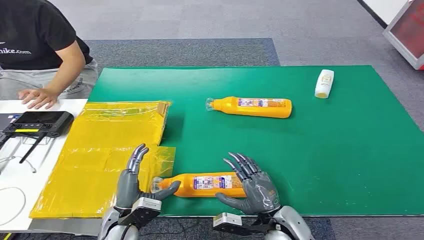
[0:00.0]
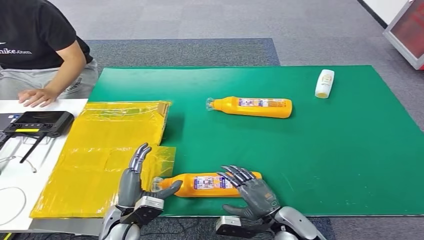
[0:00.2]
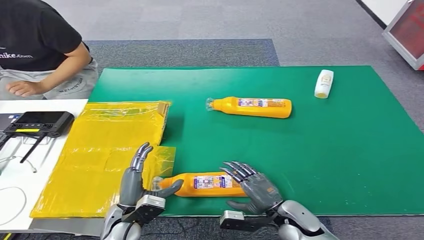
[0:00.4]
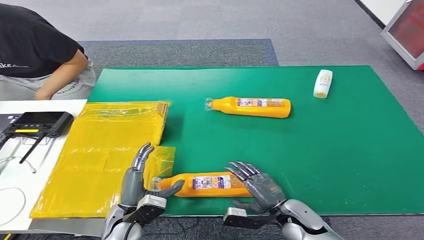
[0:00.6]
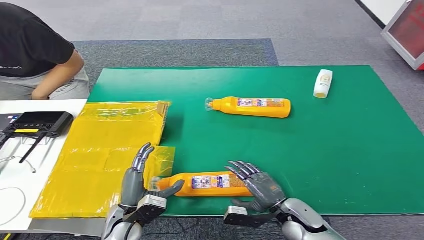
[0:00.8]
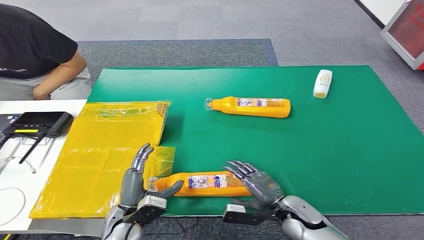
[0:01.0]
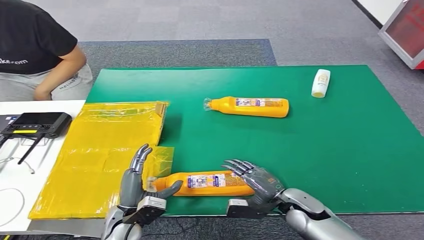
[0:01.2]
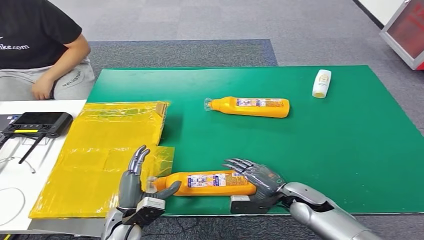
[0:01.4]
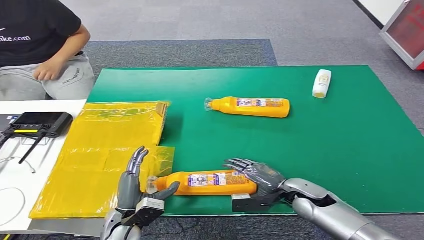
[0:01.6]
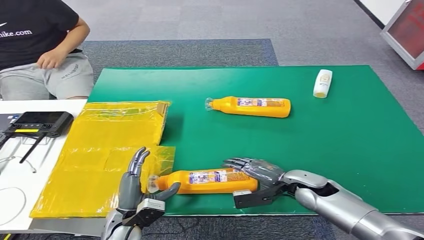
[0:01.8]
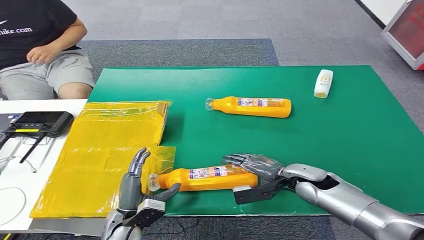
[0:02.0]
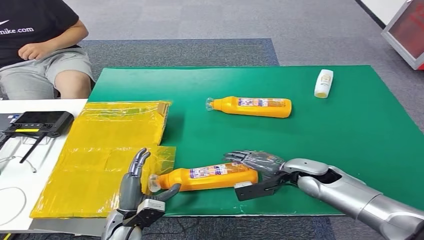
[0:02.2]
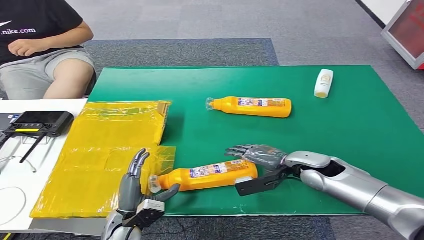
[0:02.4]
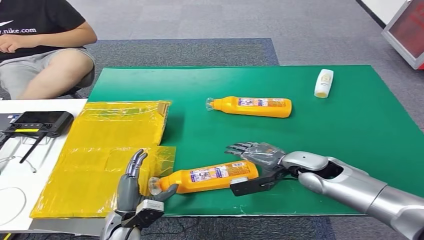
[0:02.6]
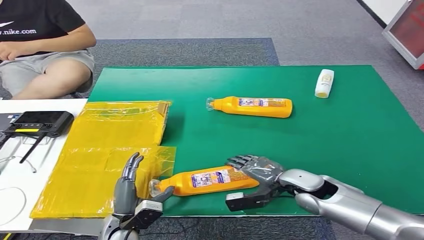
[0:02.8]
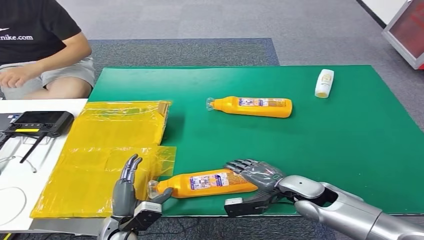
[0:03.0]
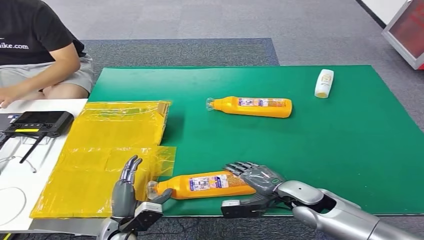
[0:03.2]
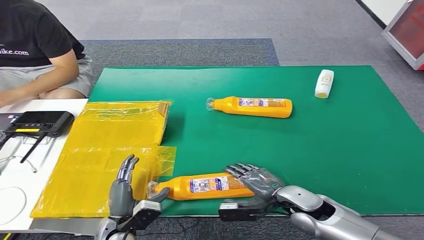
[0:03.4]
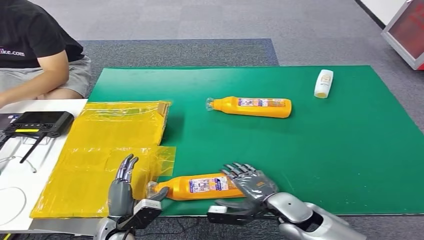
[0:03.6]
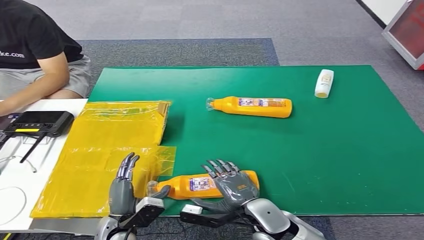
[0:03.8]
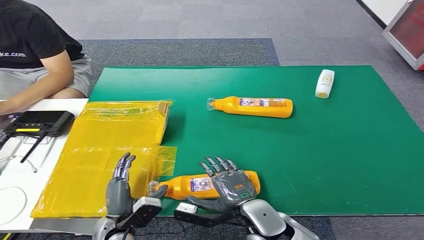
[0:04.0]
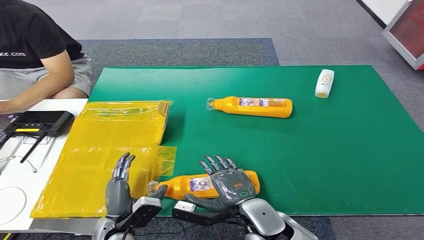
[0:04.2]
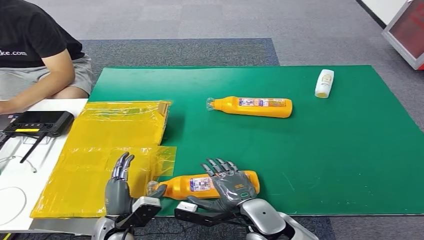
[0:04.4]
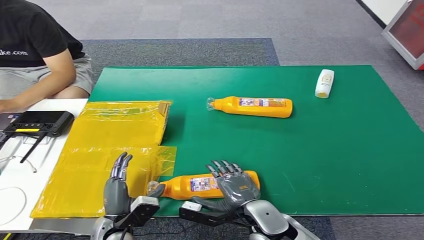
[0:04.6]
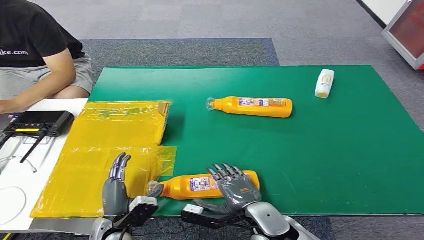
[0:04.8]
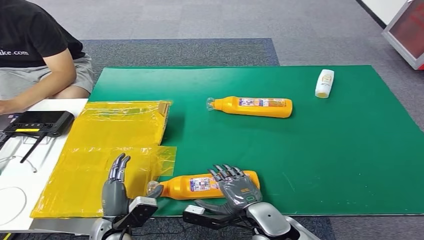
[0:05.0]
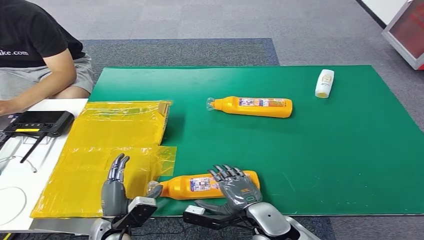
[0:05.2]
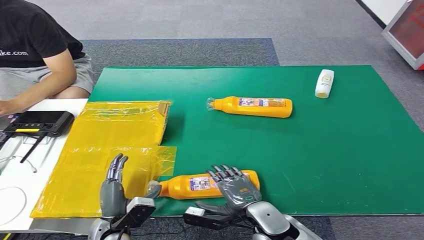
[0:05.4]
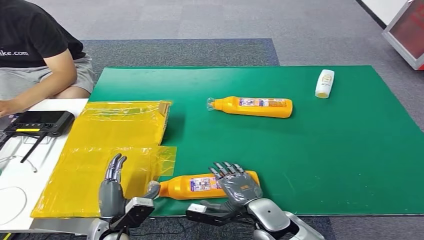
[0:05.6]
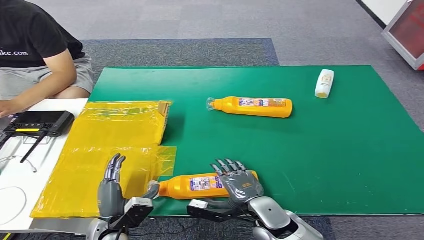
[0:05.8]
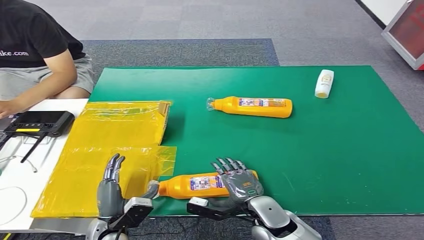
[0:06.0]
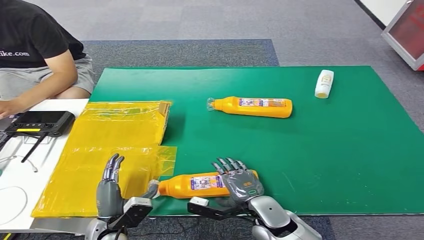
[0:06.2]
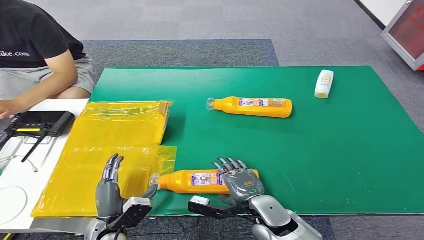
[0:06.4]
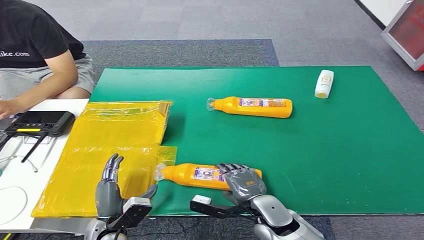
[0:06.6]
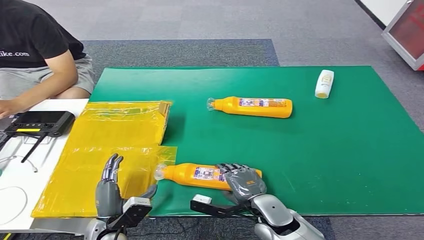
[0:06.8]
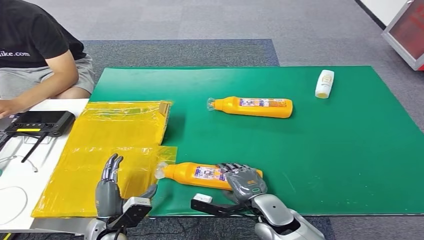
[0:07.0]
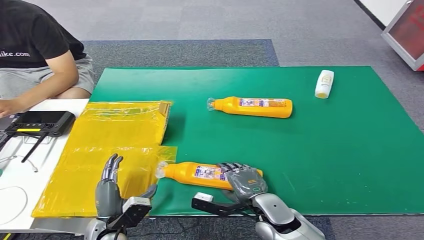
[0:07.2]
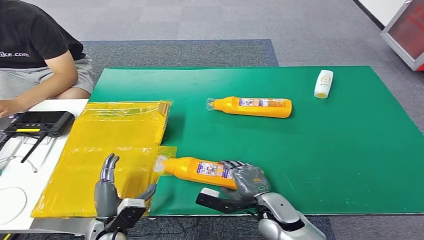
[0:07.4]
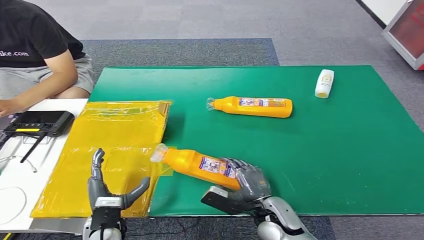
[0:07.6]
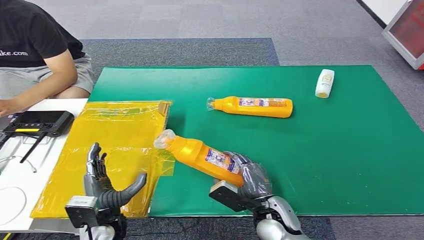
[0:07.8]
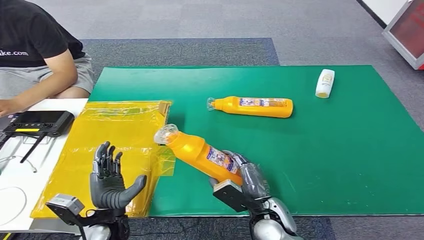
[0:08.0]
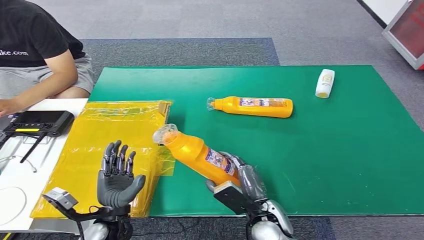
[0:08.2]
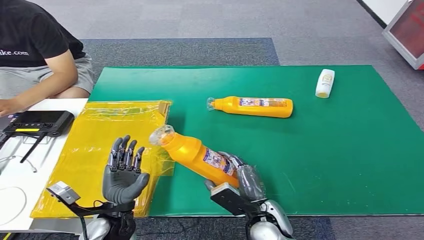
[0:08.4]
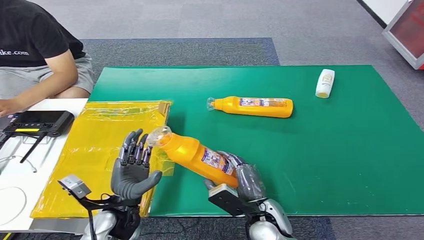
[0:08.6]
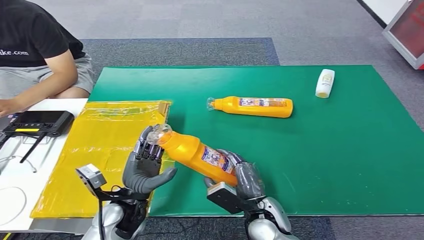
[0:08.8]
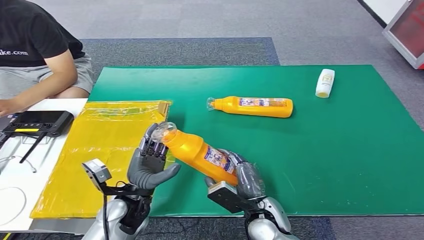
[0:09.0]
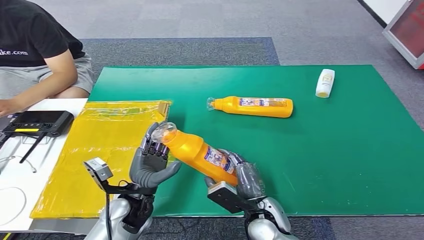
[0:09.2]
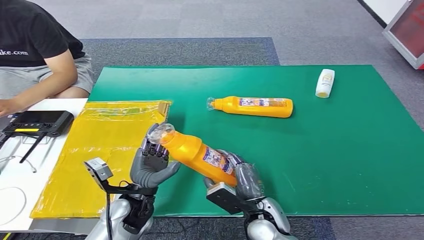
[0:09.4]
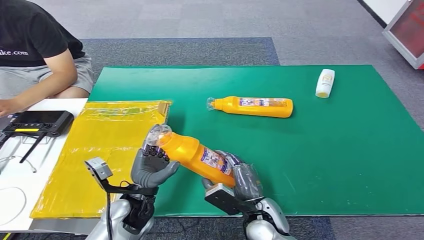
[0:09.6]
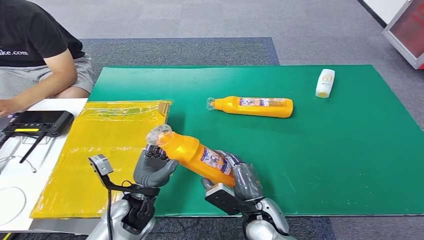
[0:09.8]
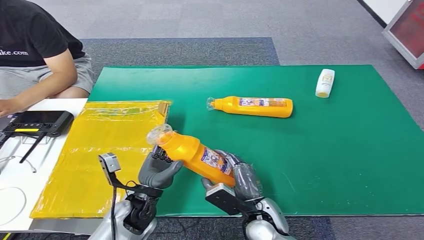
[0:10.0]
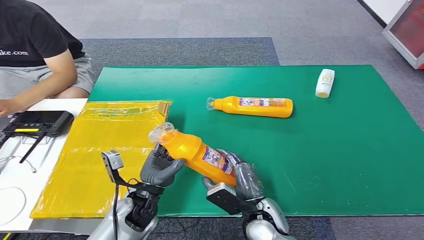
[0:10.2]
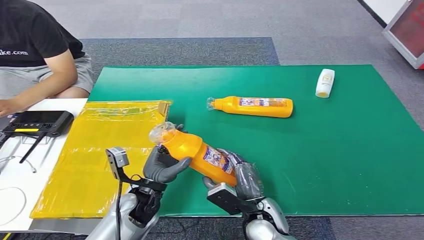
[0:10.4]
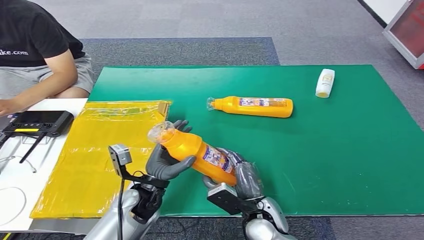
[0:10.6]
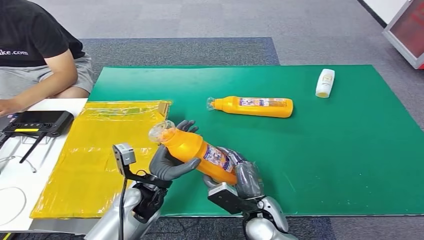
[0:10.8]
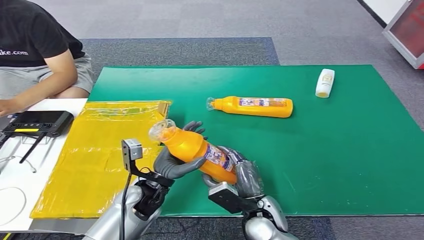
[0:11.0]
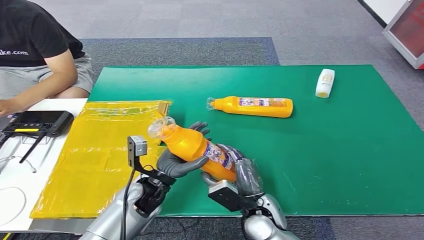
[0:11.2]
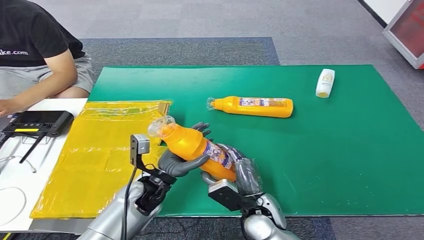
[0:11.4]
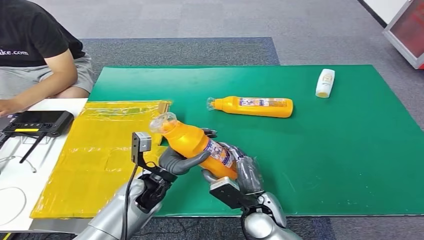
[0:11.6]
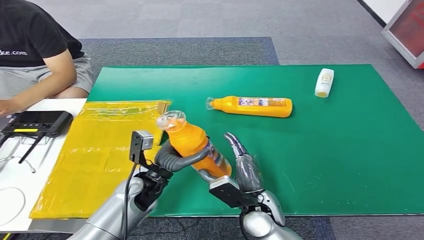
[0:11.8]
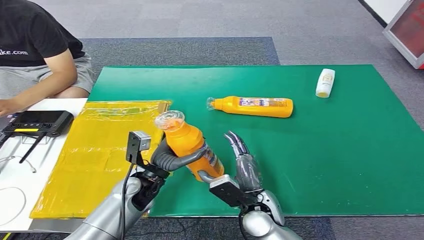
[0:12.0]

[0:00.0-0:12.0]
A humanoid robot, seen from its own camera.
Step, 0:00.0 to 0:08.6: Pick up the bottle from the table.
0:03.0 to 0:04.4: The right hand goes about 15 cm to the left and backward.
0:04.4 to 0:06.0: The hands make only small movements.
0:07.6 to 0:09.0: The left hand moves upward, to the right and forward, approximately 10 cm.
0:09.0 to 0:10.4: The hands make only small movements.
0:10.4 to 0:12.0: The hands make only small movements.

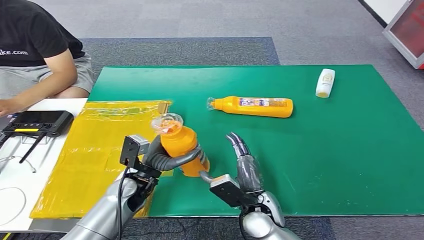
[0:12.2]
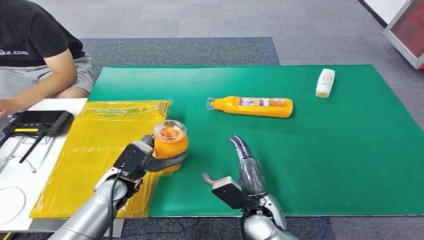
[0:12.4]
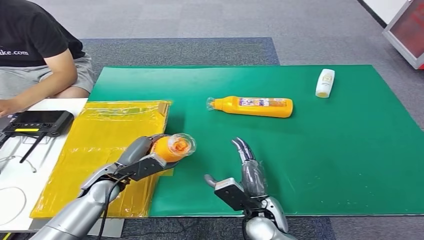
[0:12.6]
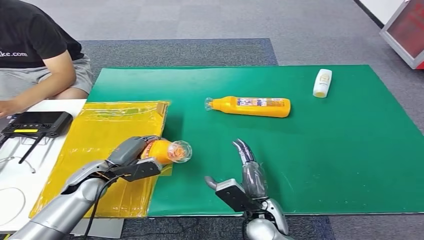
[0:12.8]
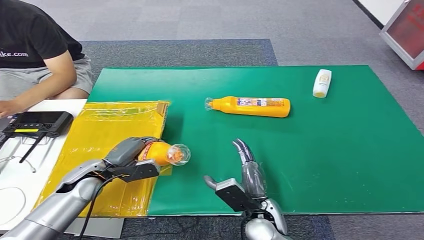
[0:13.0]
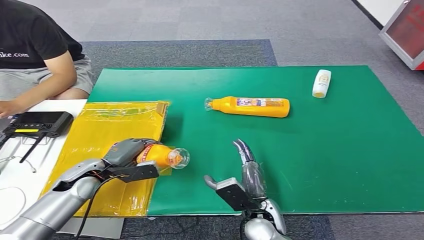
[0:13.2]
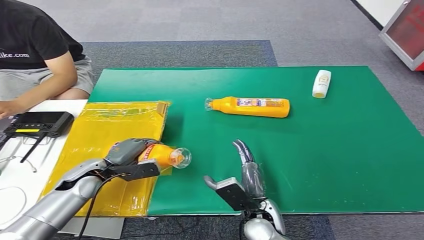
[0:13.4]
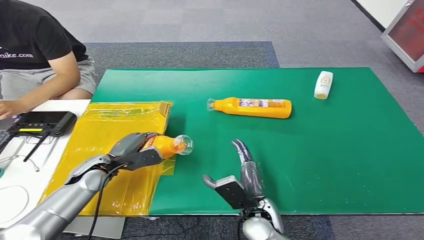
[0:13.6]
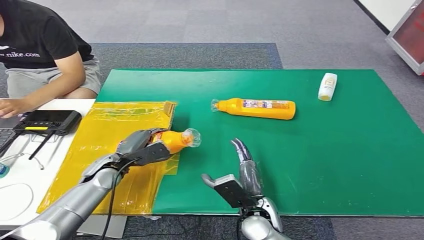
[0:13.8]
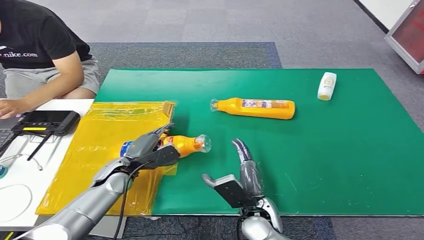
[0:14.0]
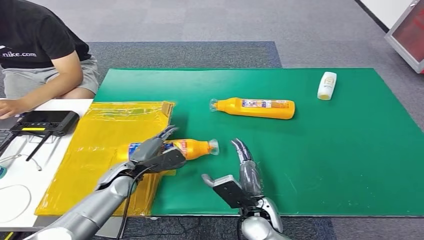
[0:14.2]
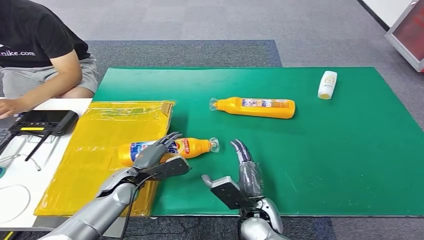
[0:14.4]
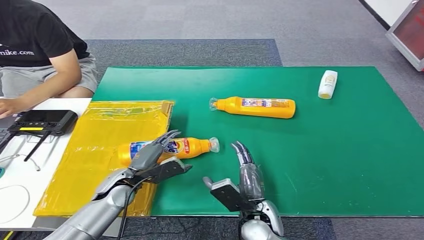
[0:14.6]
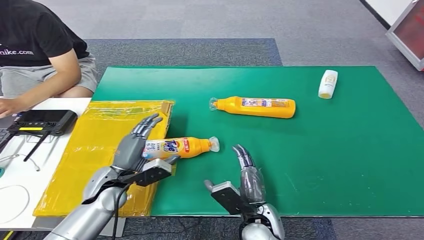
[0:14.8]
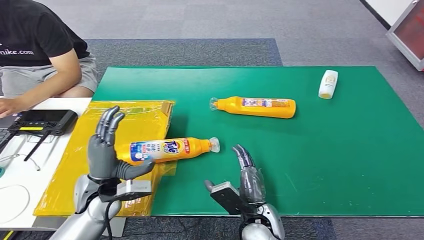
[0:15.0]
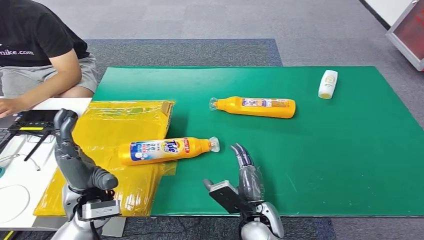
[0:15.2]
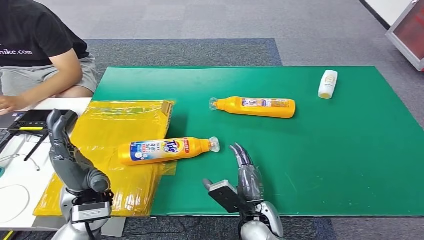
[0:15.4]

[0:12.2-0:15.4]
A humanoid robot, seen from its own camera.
Step, 0:12.2 to 0:15.4: Turn the bottle to the front side.

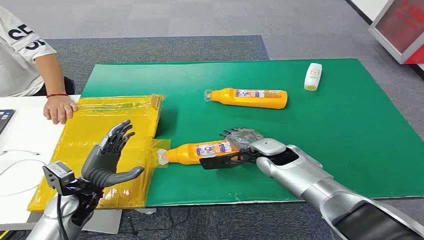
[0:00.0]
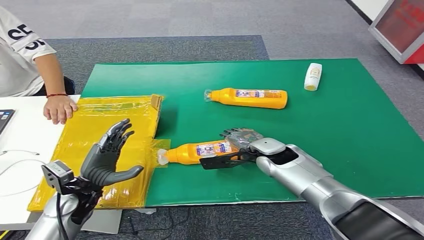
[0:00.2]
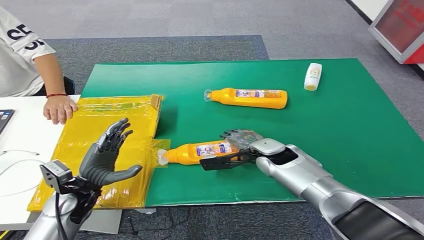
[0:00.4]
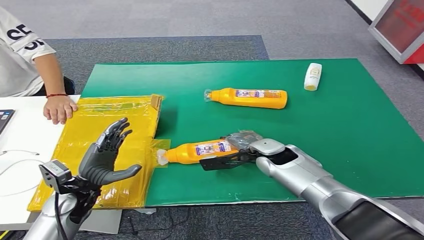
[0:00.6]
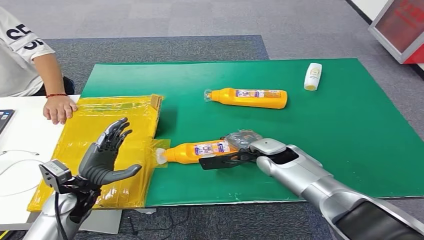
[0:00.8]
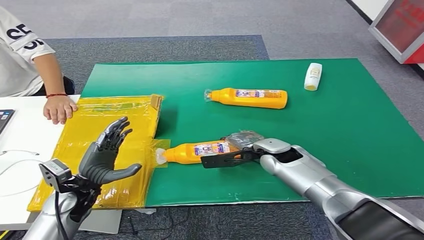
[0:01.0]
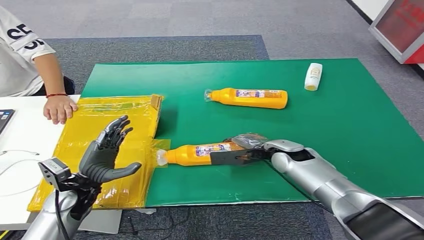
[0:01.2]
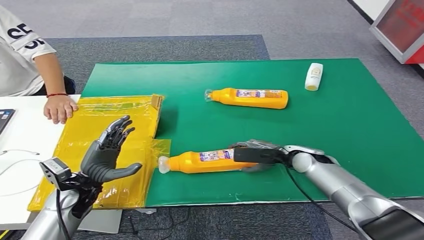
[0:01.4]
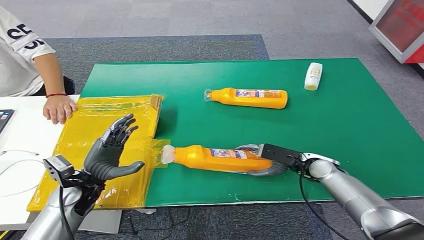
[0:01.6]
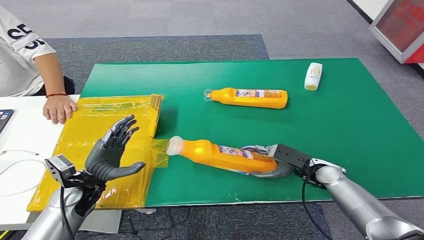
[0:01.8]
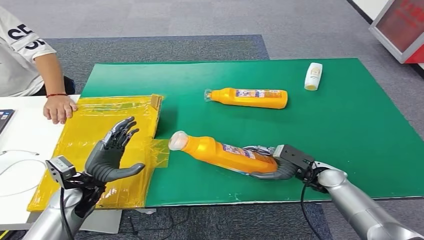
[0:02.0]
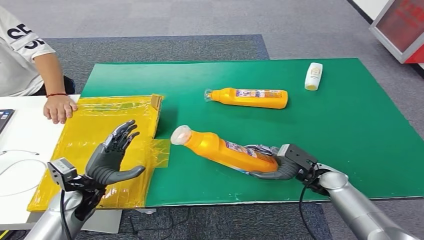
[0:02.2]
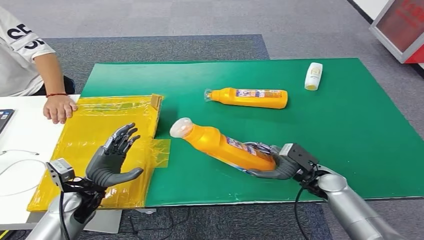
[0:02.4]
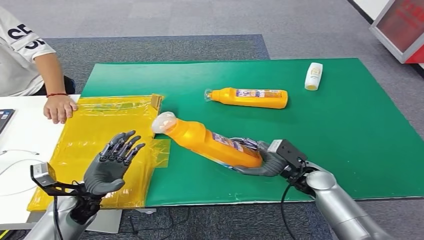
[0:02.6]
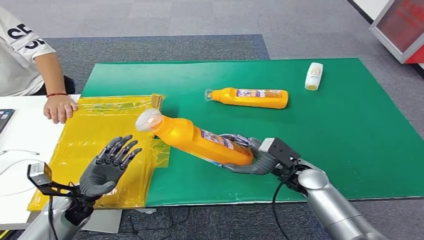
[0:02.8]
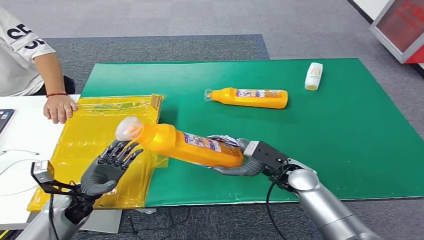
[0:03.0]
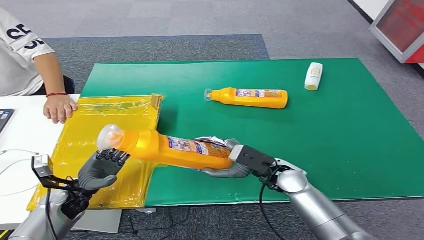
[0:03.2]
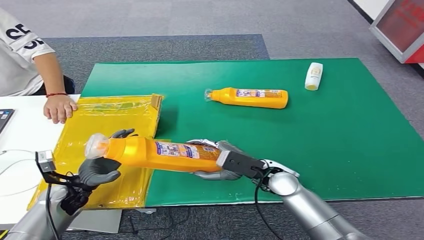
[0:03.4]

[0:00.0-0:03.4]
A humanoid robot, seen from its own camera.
Step, 0:00.0 to 0:02.0: Pick up the bottle from the table.
0:01.6 to 0:03.4: The right hand travels to the left by about 10 cm. Meanwhile the left hand is displaced downward by about 5 cm.
